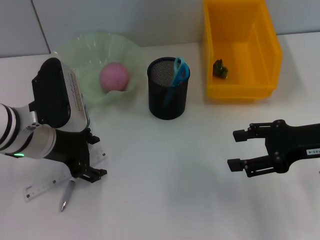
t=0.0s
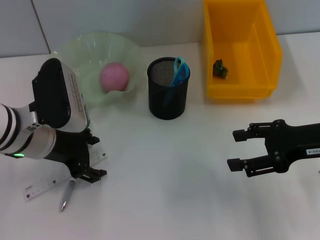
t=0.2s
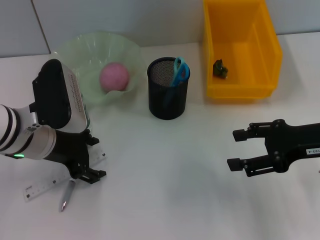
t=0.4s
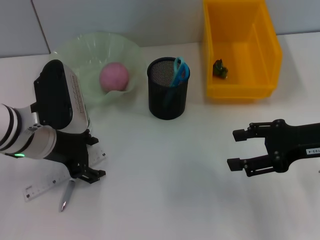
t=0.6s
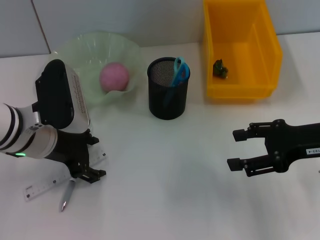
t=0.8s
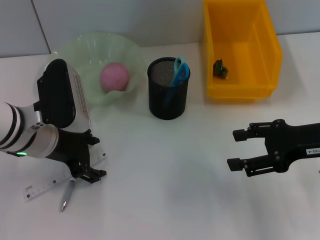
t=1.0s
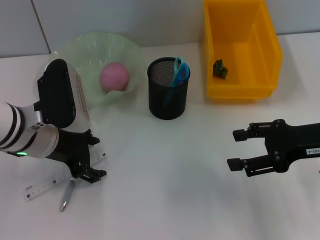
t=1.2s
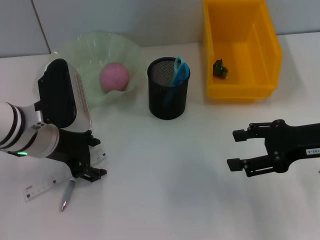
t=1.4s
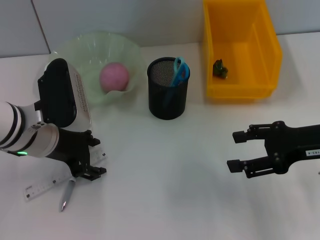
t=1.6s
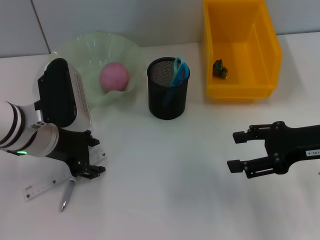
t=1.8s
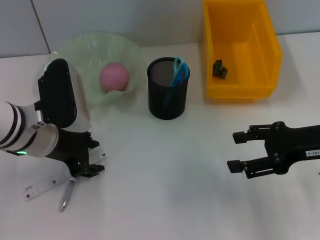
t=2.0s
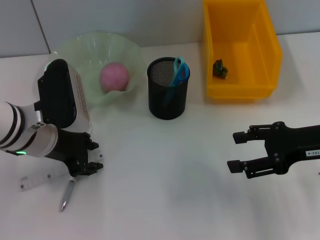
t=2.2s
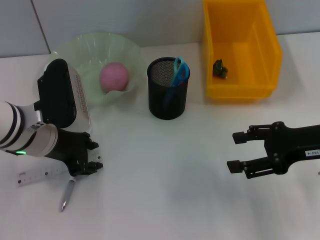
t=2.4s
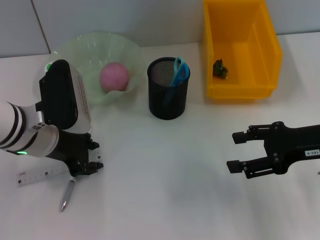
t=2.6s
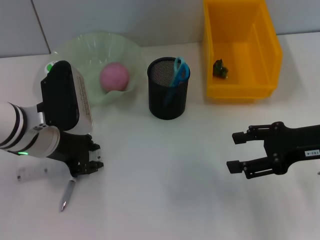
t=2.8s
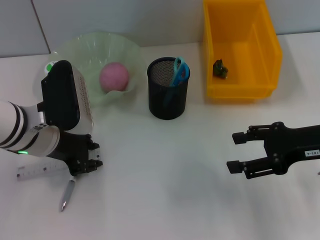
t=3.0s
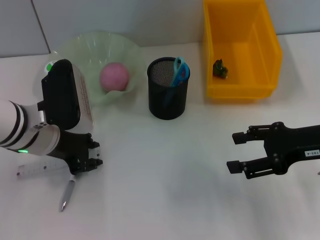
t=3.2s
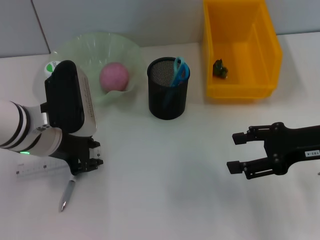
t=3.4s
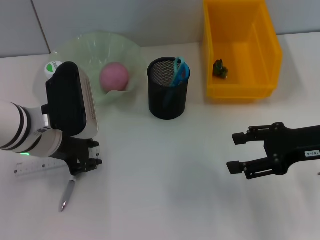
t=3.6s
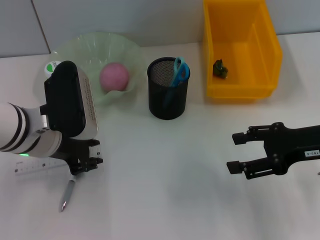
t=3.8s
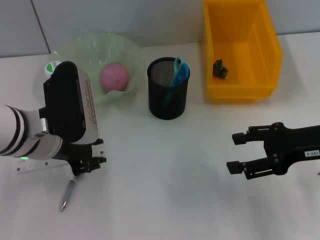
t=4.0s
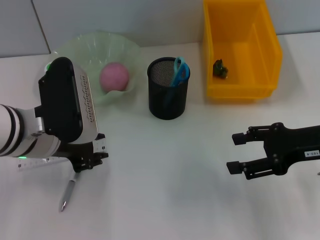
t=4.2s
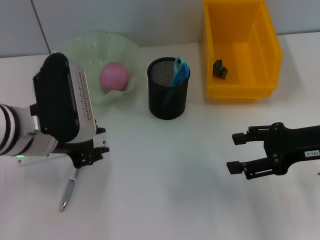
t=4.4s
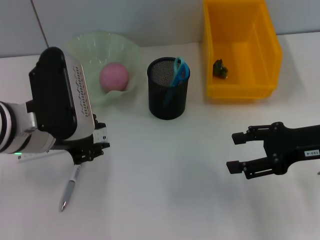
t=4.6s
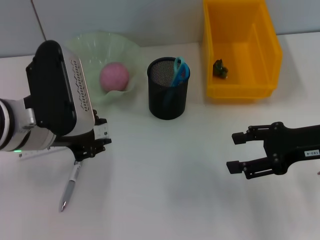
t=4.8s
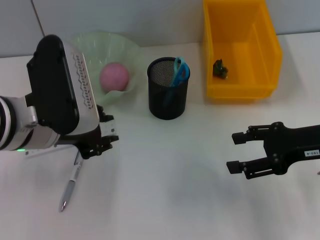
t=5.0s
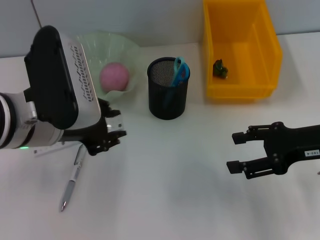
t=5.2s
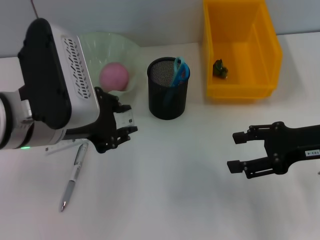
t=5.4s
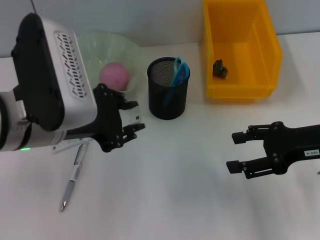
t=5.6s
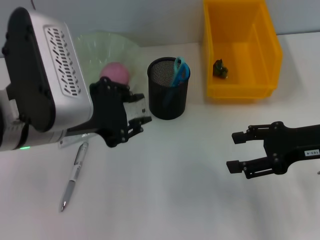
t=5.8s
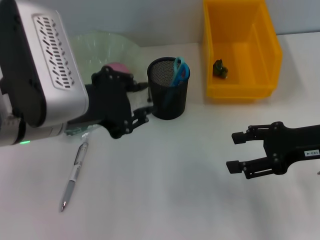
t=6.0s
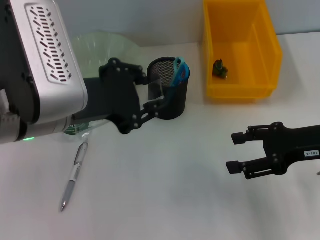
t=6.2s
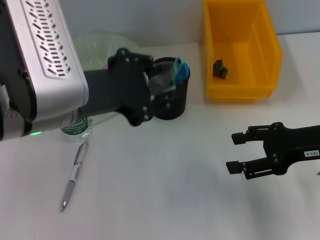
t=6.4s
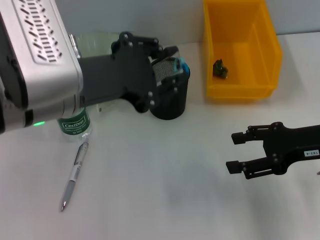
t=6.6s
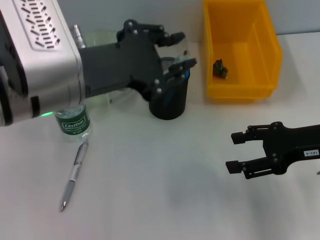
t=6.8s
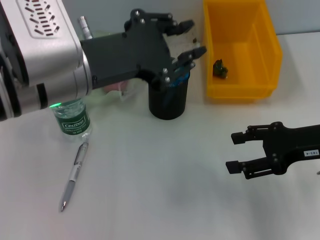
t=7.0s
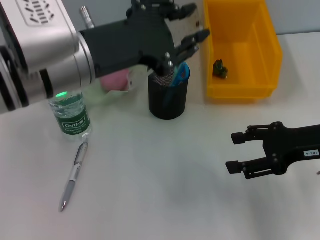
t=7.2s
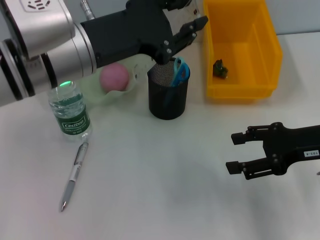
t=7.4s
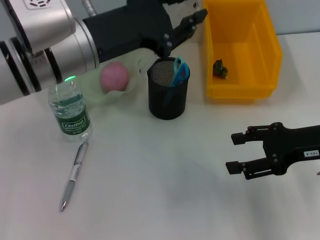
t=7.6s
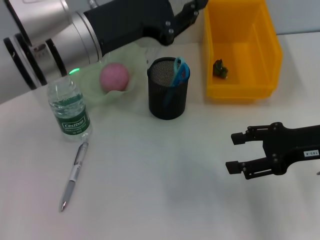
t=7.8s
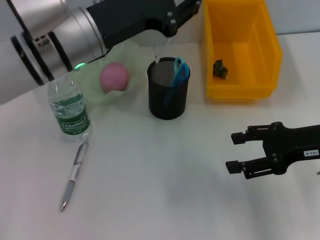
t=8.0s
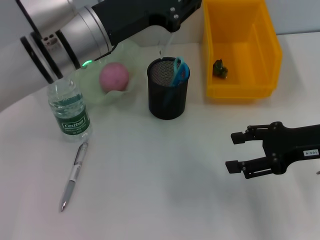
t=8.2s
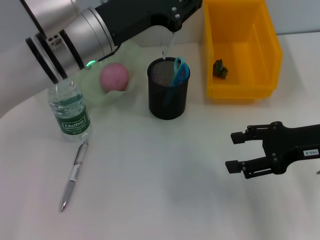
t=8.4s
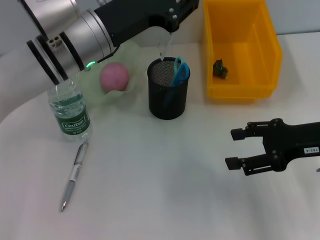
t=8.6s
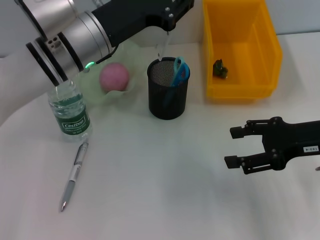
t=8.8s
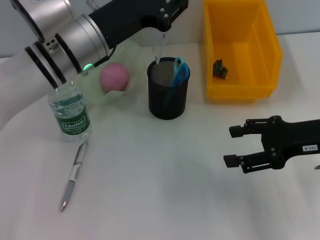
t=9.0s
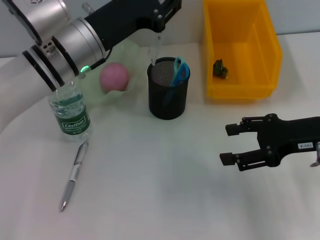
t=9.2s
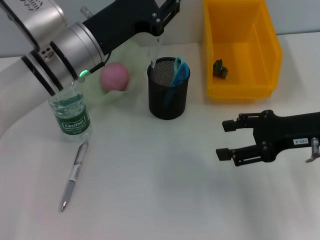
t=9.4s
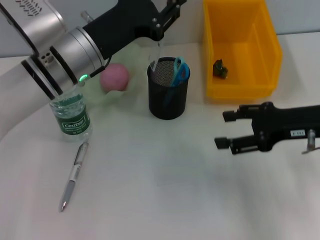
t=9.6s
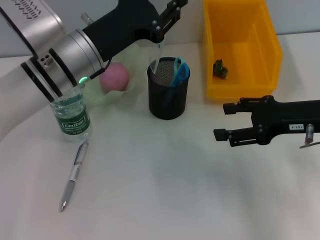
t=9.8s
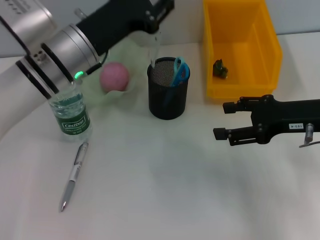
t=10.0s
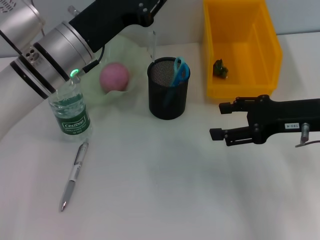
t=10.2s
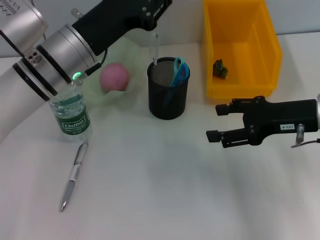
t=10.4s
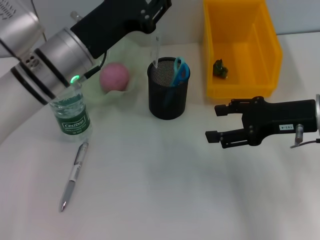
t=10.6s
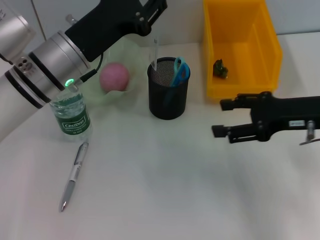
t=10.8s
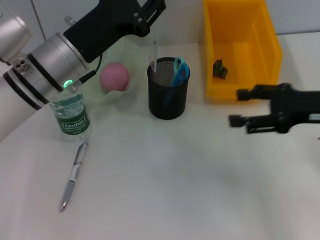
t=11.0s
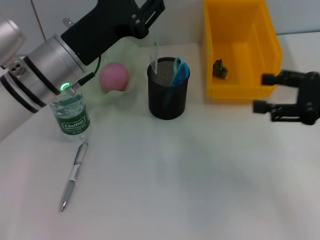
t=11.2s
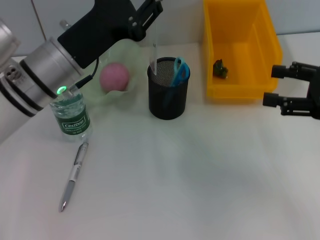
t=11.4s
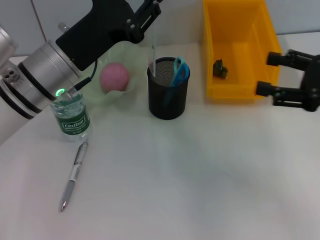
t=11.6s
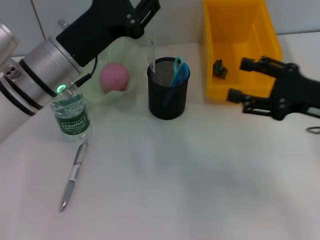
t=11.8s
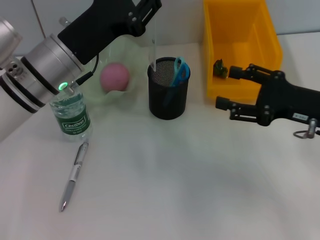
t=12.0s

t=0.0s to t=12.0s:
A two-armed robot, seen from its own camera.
Step, t=0.0s to t=4.0s: Grab the ruler with the left hand.
t=0.0s to t=1.6s: Neither gripper changes place.
t=1.6s to t=3.0s: The left gripper closes up.
t=3.0s to t=4.4s: The left gripper moves about 5 cm.
t=4.4s to t=6.0s: The left gripper shifts roughly 5 cm upward.
t=6.0s to t=7.6s: The left gripper moves forward, about 5 cm.
t=7.6s to t=9.0s: The left gripper ends up roughly 5 cm from where it was.
t=9.0s to t=10.4s: The grippers move only a little.

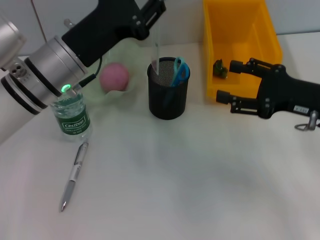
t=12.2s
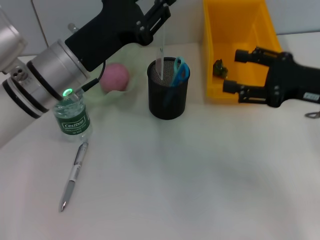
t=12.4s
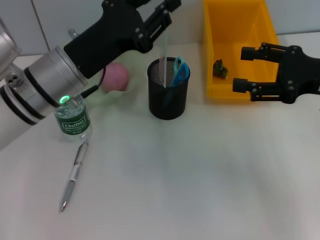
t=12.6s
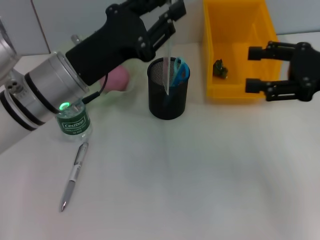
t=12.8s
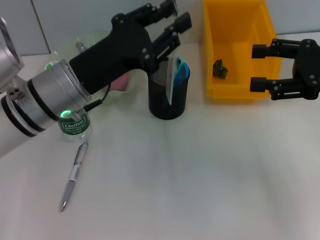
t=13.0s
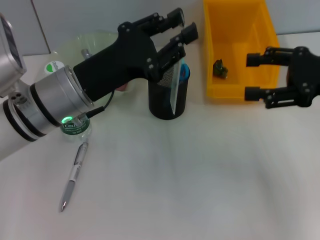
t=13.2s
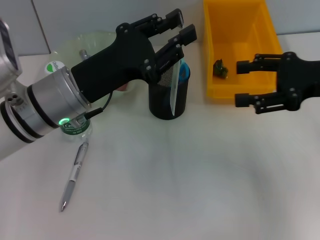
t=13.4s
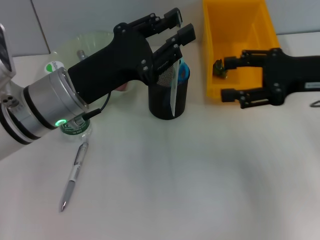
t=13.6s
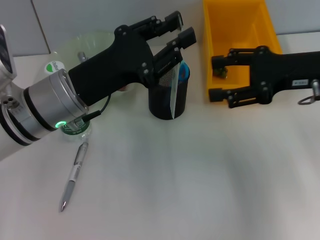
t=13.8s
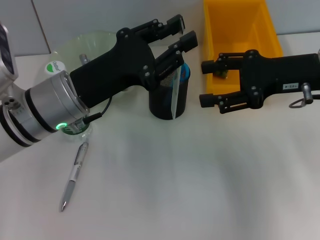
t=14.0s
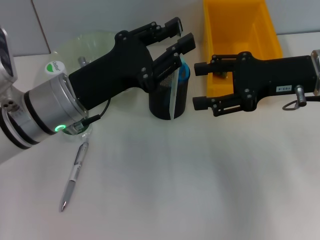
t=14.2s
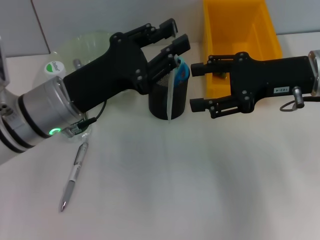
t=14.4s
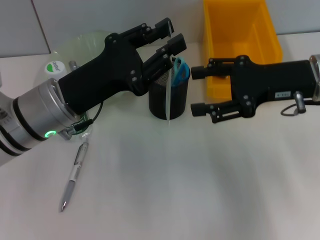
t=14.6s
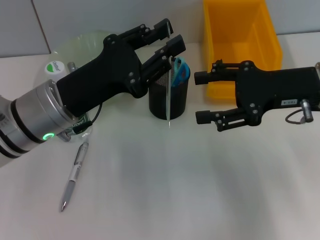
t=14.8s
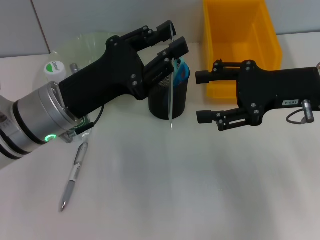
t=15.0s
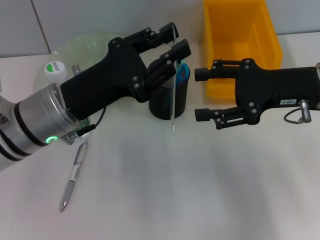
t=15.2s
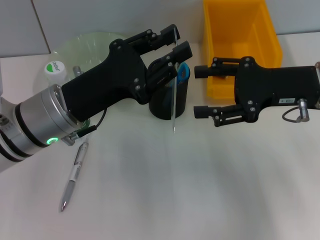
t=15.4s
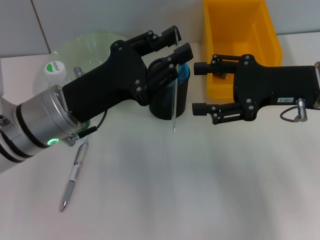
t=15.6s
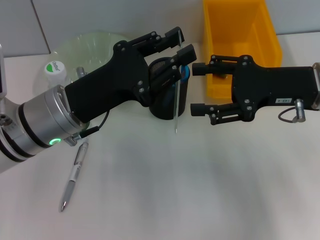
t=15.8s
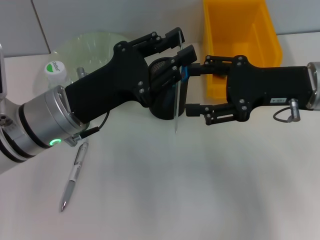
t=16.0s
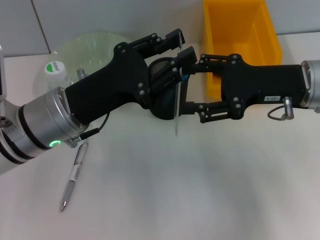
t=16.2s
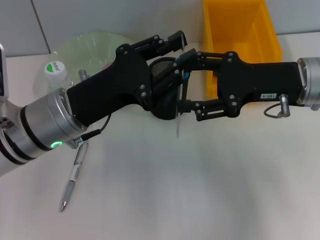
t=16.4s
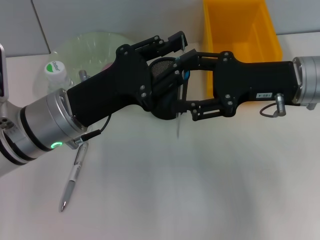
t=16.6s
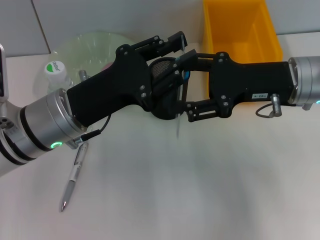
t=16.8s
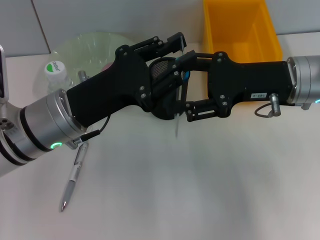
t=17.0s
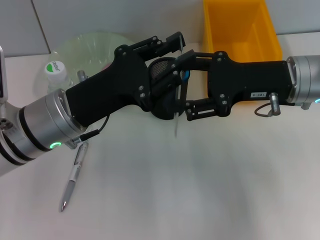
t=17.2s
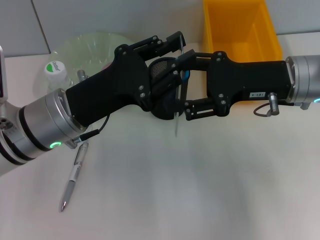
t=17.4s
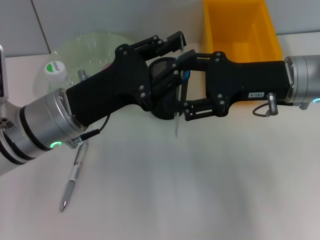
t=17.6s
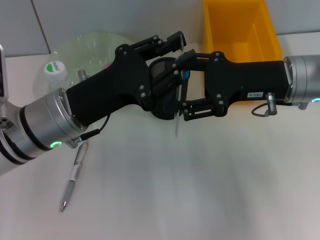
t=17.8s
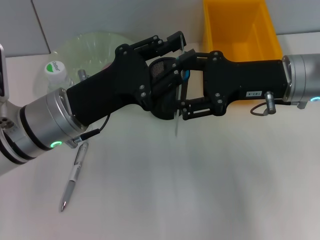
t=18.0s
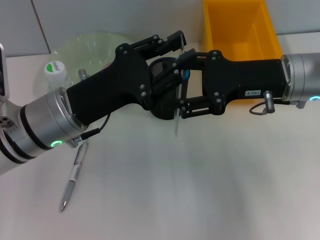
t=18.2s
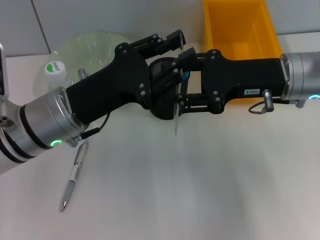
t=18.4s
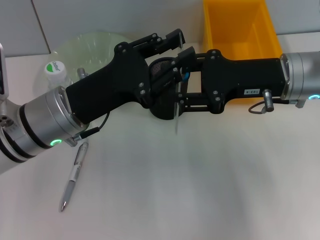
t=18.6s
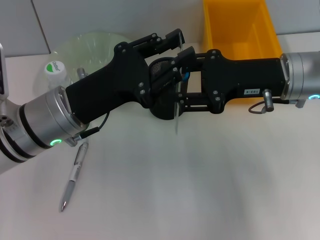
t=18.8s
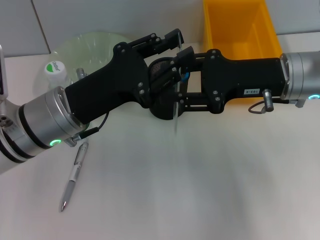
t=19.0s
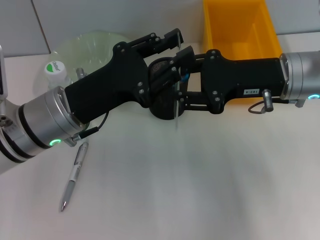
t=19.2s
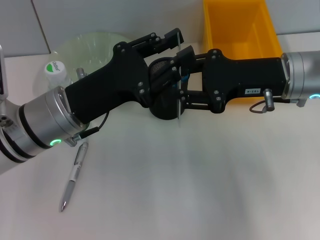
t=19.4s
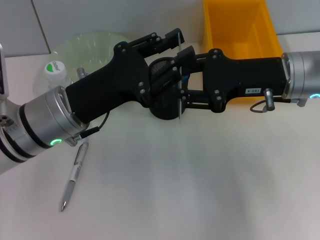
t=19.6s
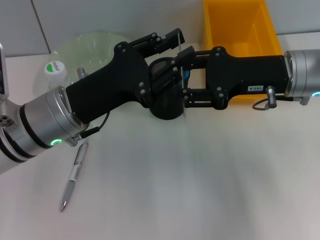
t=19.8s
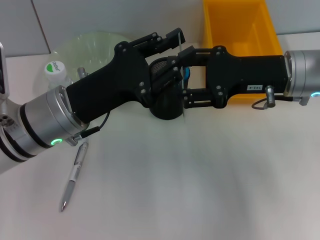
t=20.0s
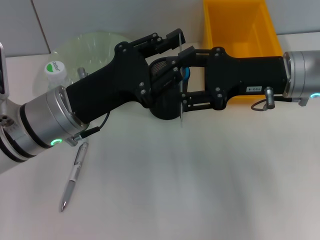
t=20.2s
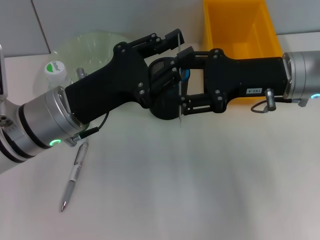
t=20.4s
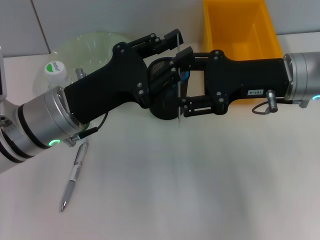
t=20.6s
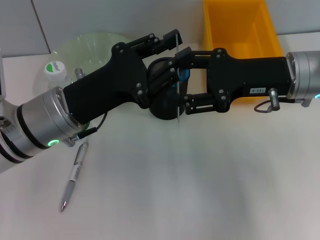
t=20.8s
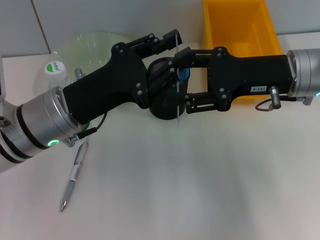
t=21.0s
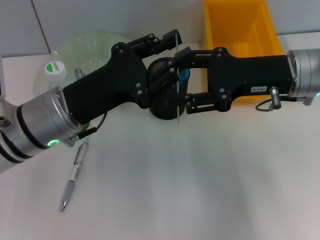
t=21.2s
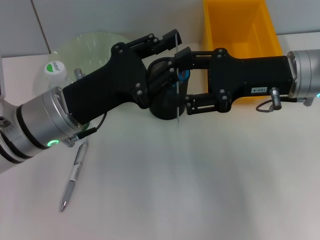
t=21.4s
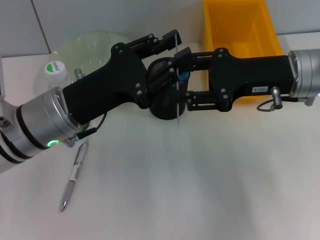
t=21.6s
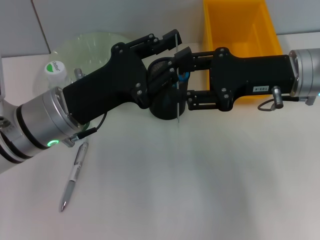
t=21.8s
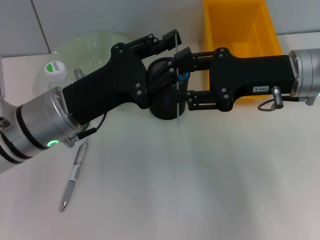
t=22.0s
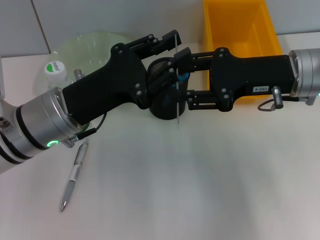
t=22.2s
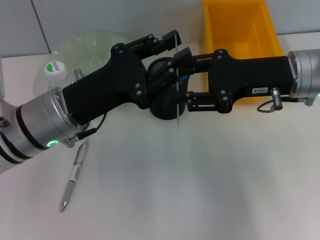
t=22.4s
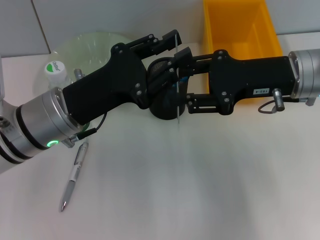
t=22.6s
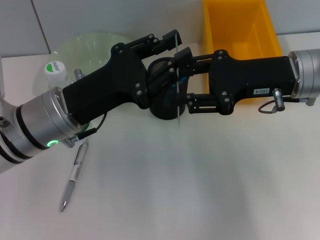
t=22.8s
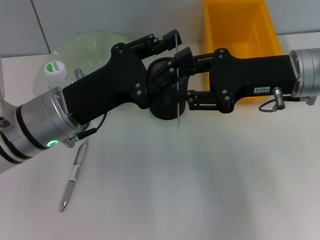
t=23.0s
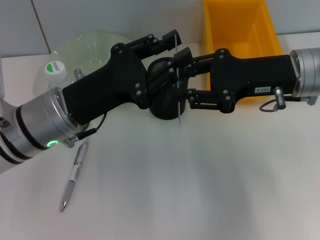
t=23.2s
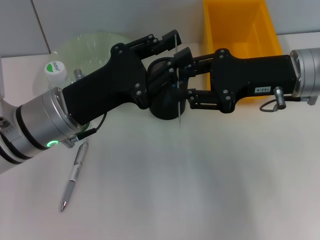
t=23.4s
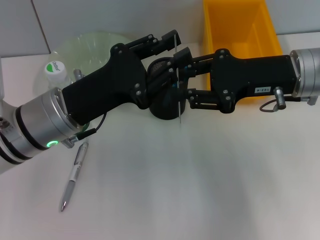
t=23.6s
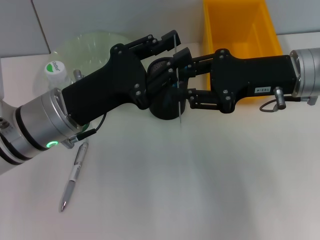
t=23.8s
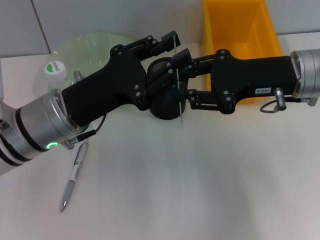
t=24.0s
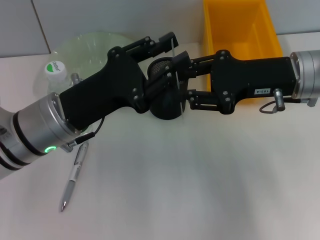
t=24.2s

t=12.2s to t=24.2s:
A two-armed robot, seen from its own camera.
t=12.2s to t=13.8s: The right gripper travels upward by some 5 cm.
t=13.8s to t=16.6s: The grippers stay close to where they were, moving slightly.
t=16.6s to t=18.2s: Both grippers stay about where they are.
t=18.2s to t=19.8s: The right gripper closes.
t=19.8s to t=21.2s: The right gripper opens.
t=21.2s to t=24.2s: Both grippers stay about where they are.
